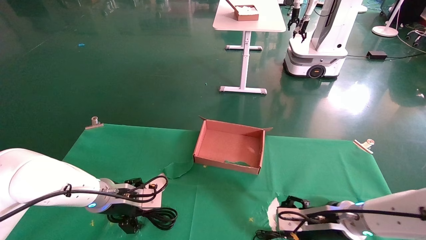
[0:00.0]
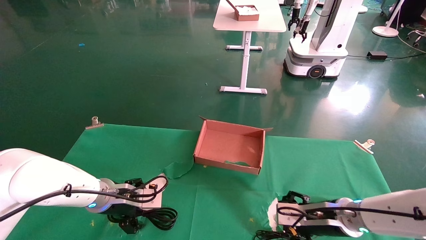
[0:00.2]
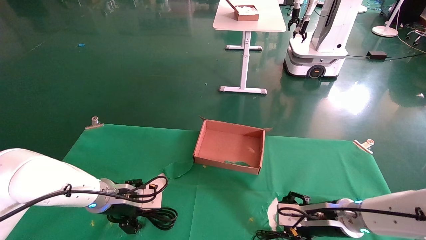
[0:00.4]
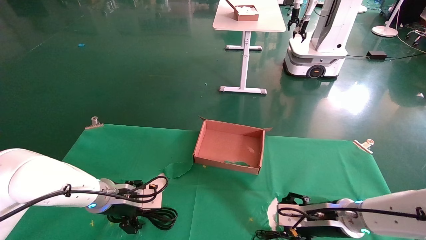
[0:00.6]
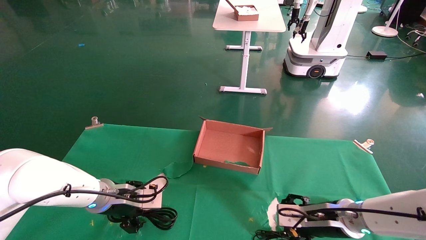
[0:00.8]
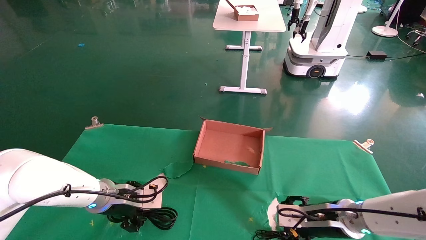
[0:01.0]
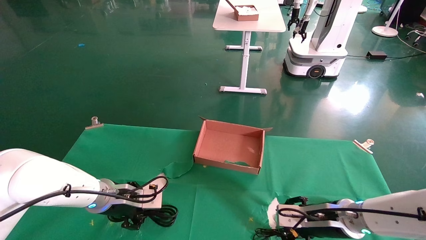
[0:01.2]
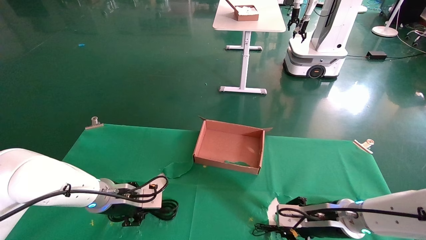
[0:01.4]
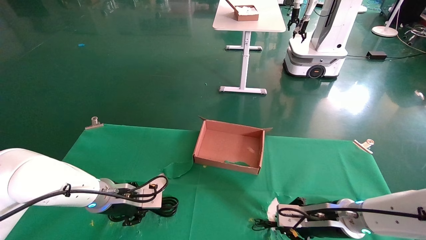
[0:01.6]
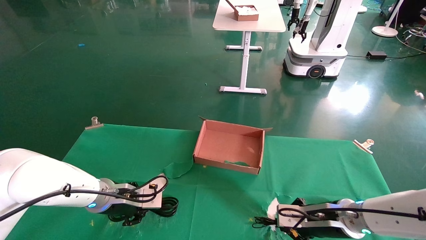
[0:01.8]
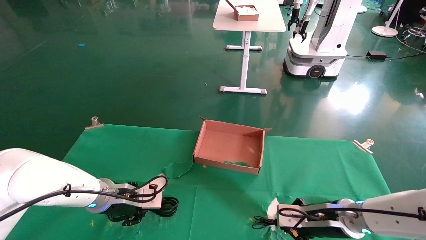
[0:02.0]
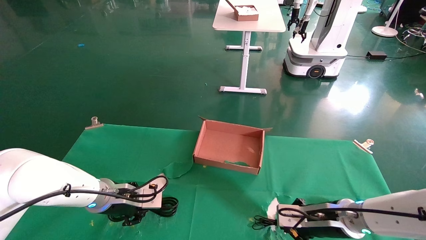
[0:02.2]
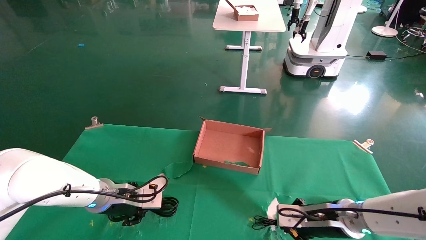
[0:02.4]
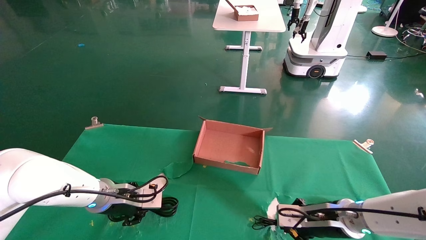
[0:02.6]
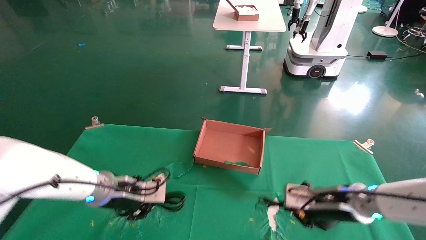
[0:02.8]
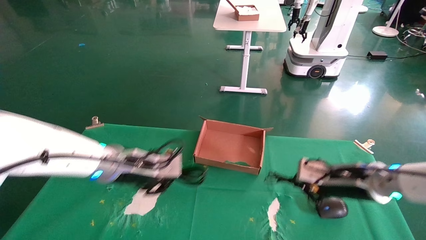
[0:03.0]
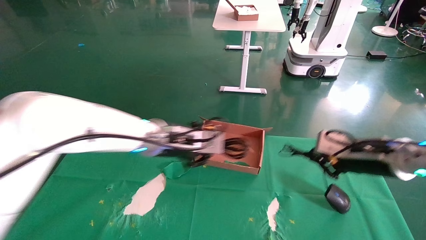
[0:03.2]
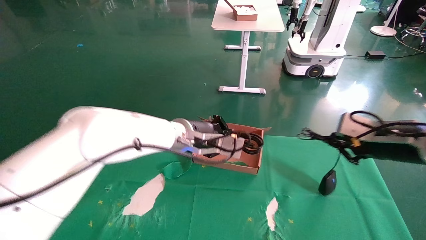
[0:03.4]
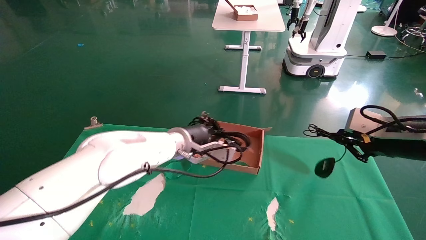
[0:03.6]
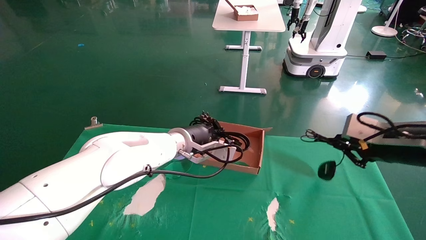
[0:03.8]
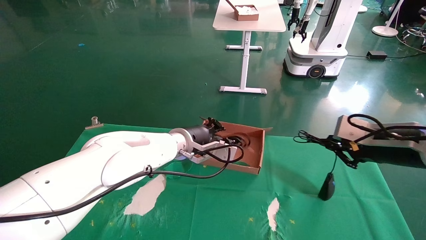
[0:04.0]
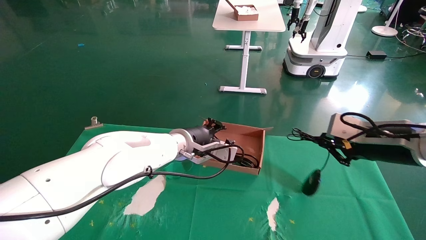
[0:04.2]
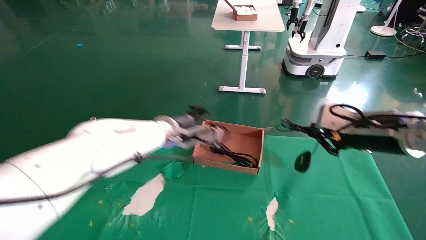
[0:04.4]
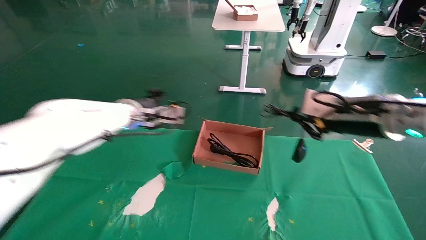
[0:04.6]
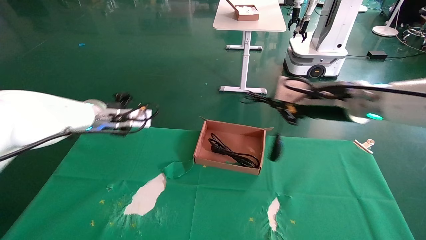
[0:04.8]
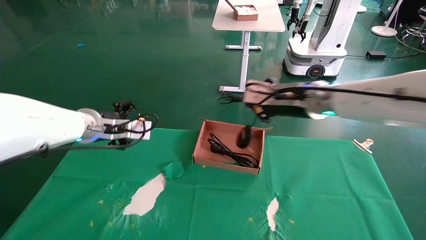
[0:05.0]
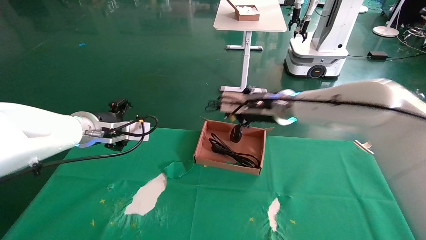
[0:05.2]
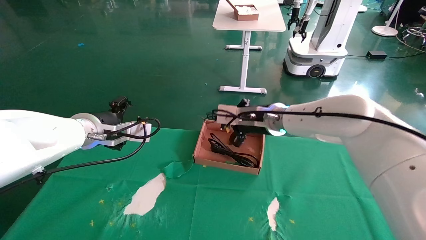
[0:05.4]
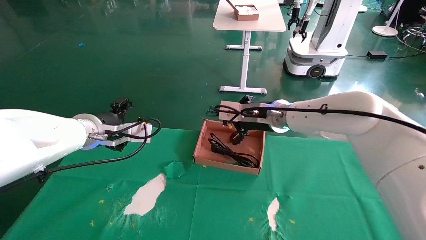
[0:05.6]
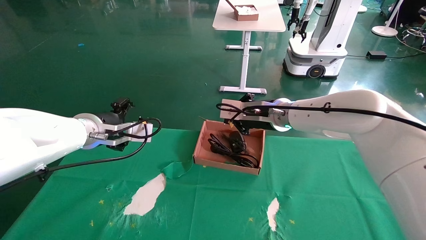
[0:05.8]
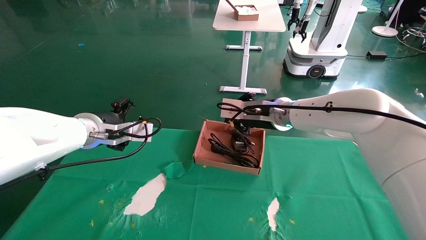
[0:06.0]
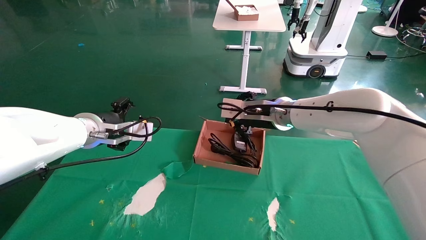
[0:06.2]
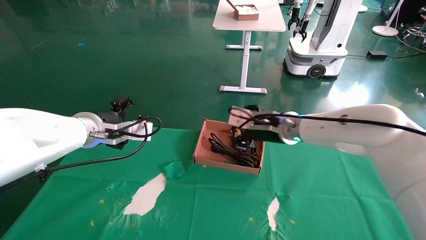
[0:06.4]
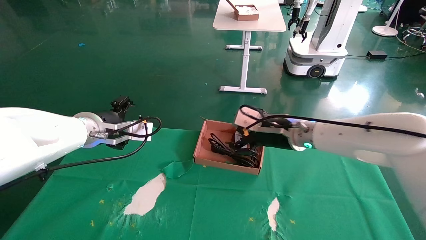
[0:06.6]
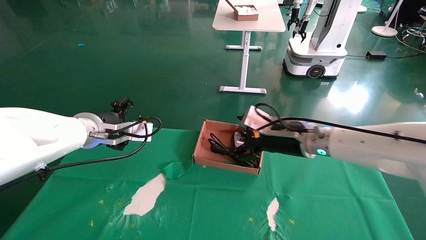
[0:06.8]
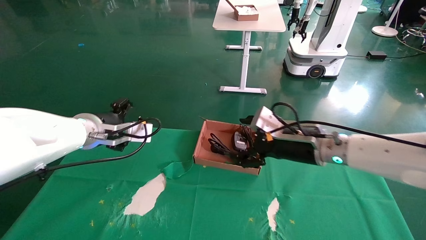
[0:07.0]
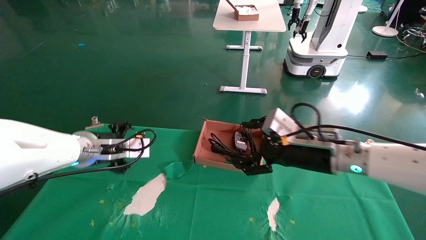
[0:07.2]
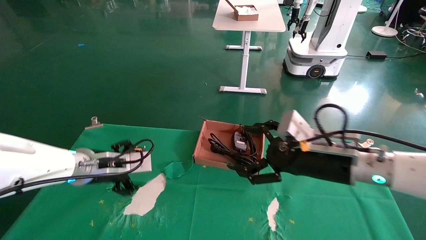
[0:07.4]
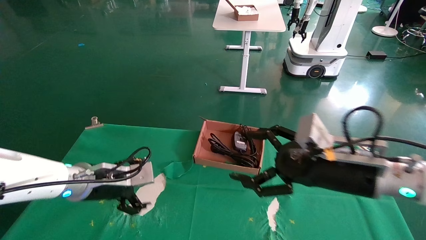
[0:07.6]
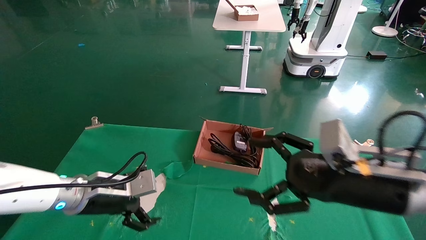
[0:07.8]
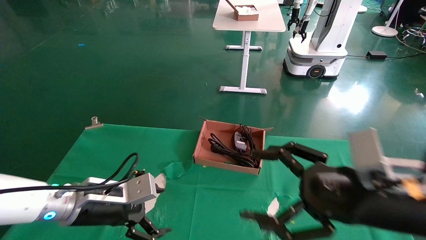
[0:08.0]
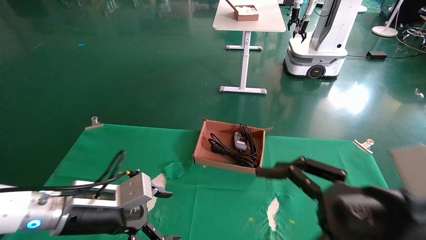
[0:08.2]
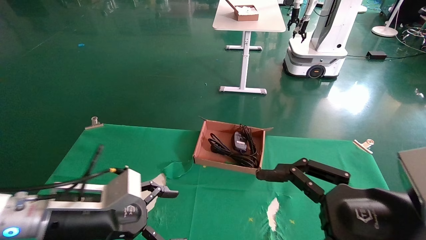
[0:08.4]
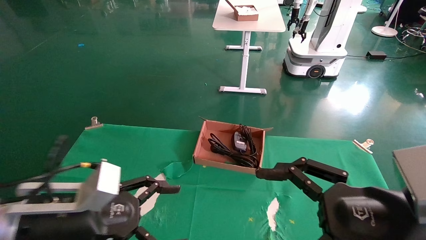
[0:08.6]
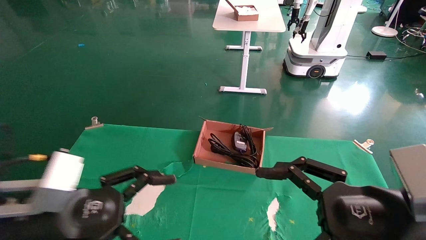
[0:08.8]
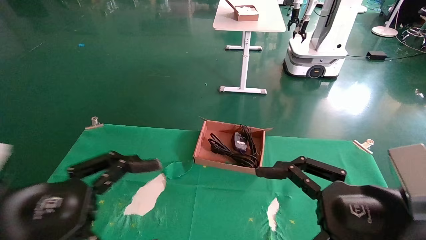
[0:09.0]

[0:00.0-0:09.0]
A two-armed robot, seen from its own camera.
Step, 0:01.8 to 0:07.2: Place the mouse and power cord into the box.
0:00.0 to 0:01.6: The left gripper closes up. Meanwhile the right gripper closes.
0:01.6 to 0:03.0: The left gripper shifts some 10 cm upward and to the right. Meanwhile the right gripper shifts about 10 cm upward.
0:03.0 to 0:04.4: The left gripper goes roughly 10 cm forward. The right gripper travels upward by approximately 10 cm.
0:04.4 to 0:06.0: The left gripper goes approximately 15 cm to the left and backward, and opens. The right gripper heads to the left and forward, covering some 20 cm.
0:06.0 to 0:07.6: The left gripper travels downward by about 10 cm. The right gripper is displaced backward and to the right by approximately 20 cm, and opens its fingers.
0:07.6 to 0:09.0: The right gripper goes approximately 10 cm backward. Meanwhile the left gripper shifts approximately 15 cm backward.
